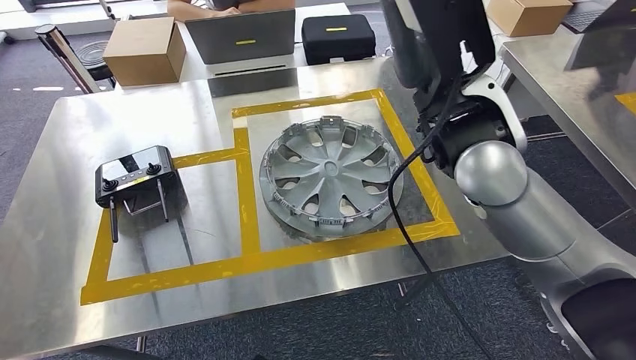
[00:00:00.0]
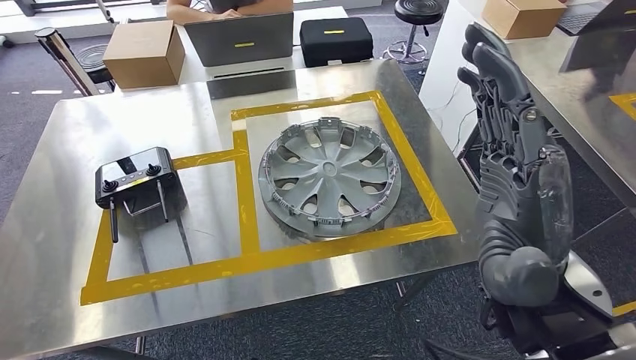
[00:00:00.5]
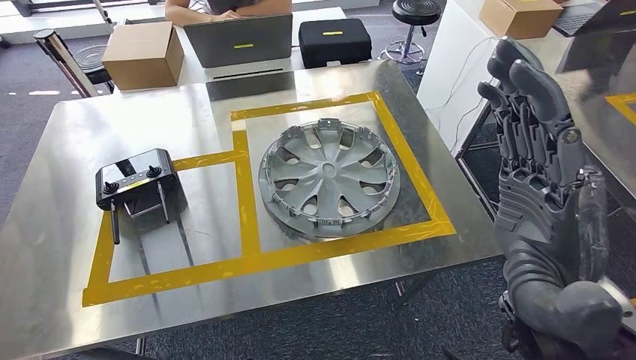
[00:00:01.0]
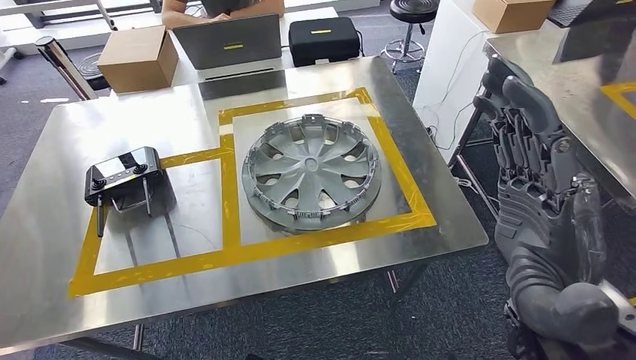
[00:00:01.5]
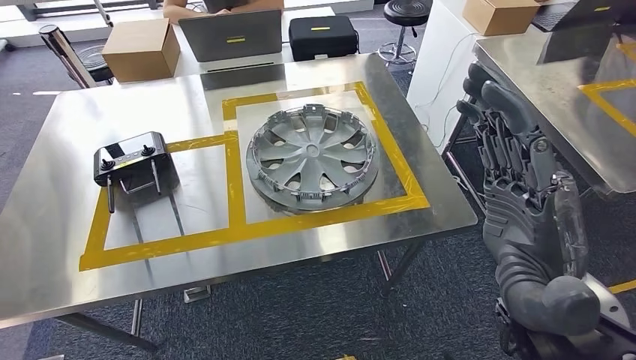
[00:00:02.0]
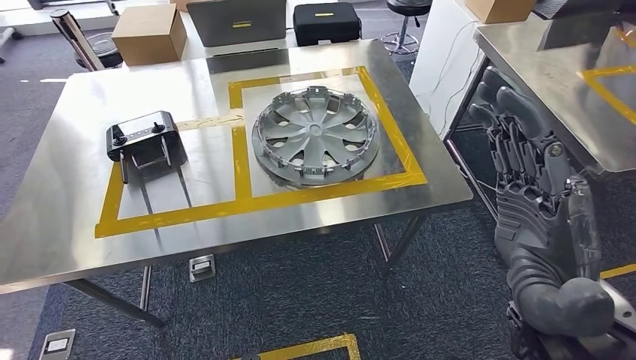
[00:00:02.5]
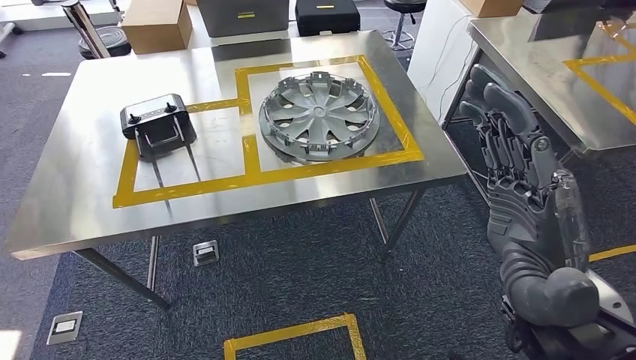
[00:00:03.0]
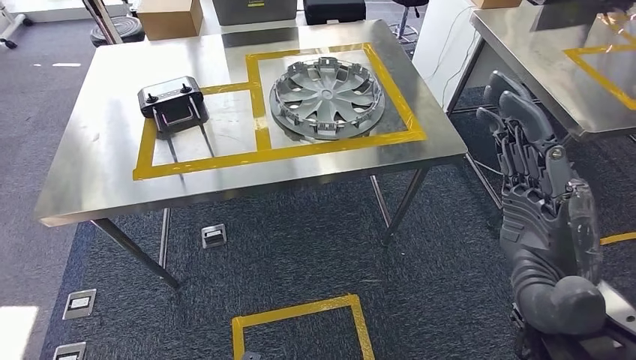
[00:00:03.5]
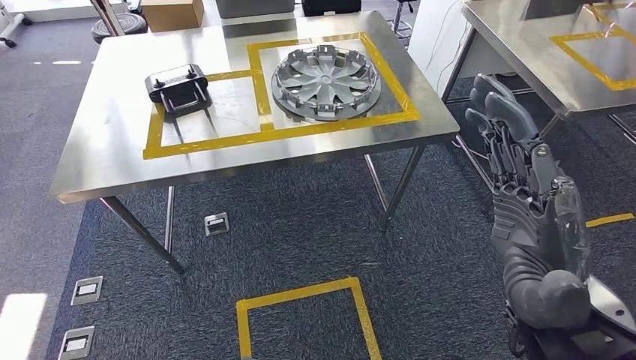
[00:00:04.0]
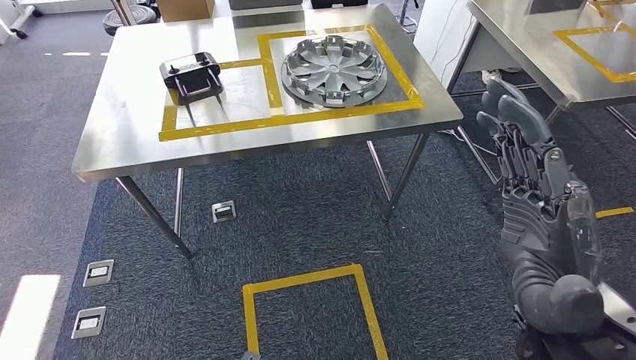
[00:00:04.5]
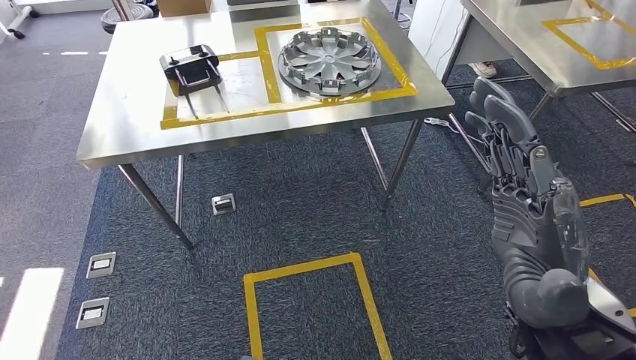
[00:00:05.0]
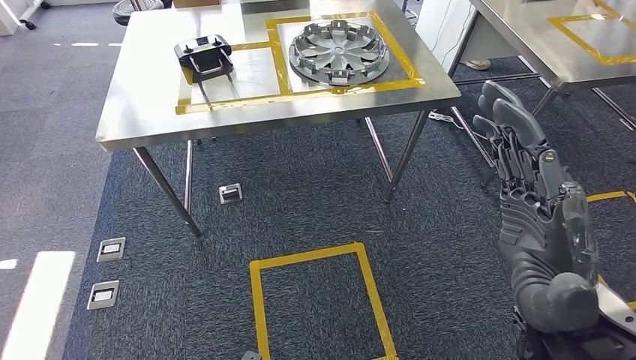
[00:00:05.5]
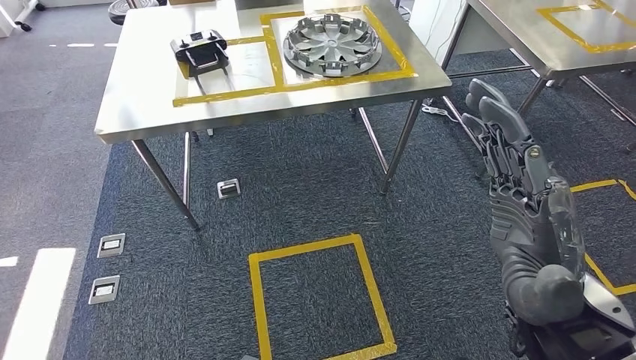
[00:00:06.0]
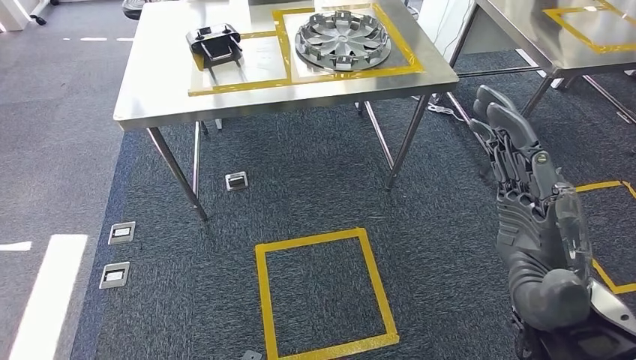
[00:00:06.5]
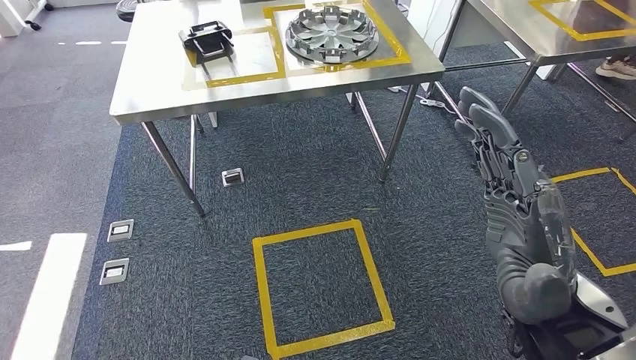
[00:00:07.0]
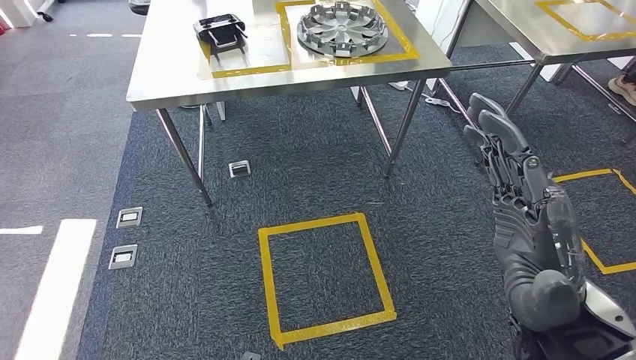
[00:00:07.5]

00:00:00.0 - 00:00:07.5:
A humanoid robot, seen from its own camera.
Step, 00:00:00.0 - 00:00:02.5: Insert the large material into the corresponding slot on the workbench.
Step, 00:00:03.0 - 00:00:07.5: Move to the initial position of the shelf.
